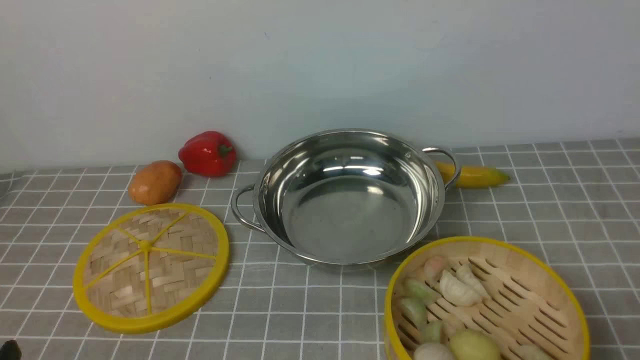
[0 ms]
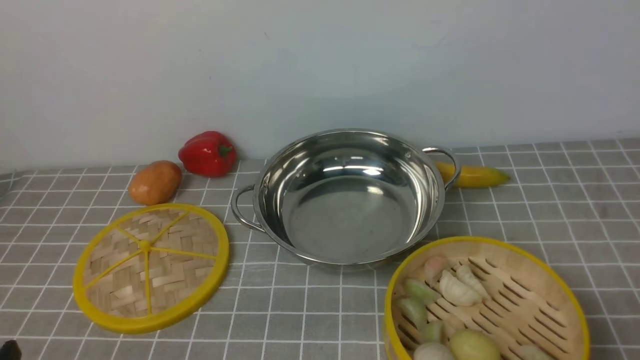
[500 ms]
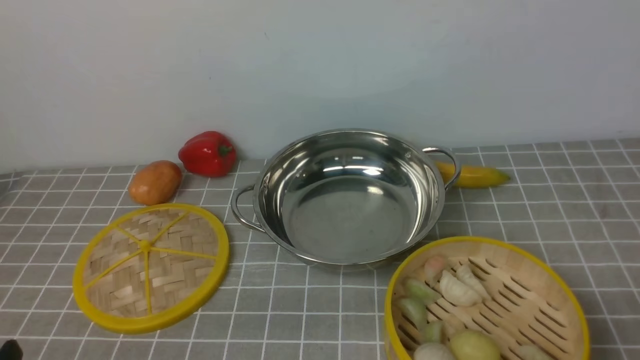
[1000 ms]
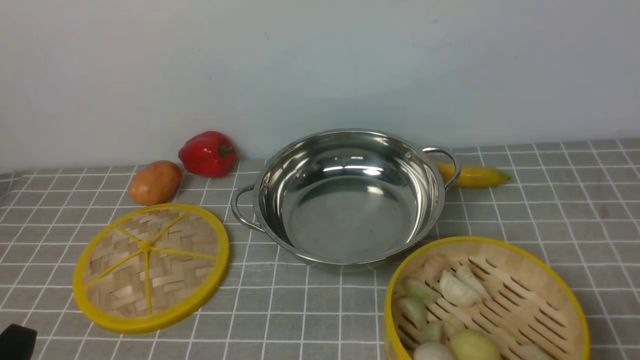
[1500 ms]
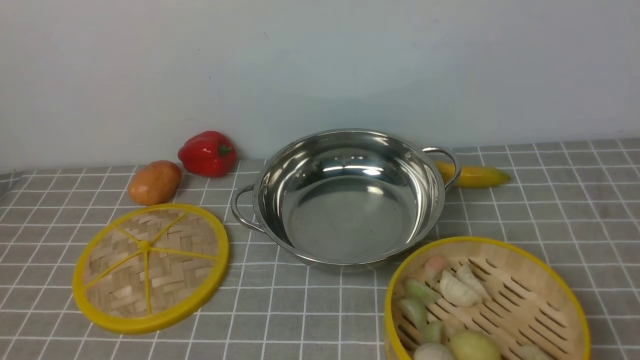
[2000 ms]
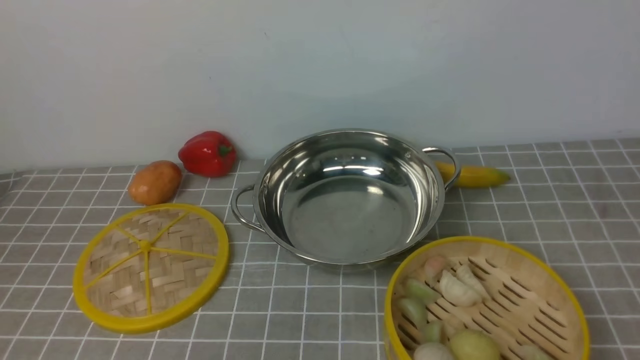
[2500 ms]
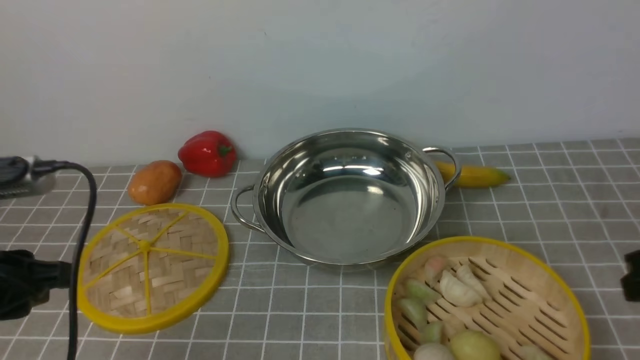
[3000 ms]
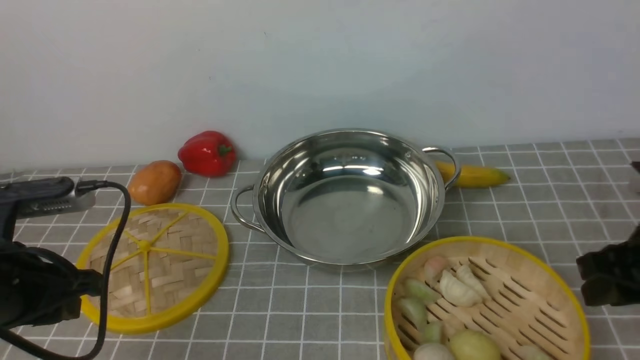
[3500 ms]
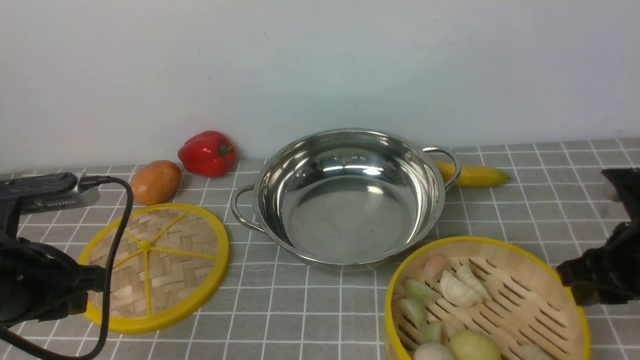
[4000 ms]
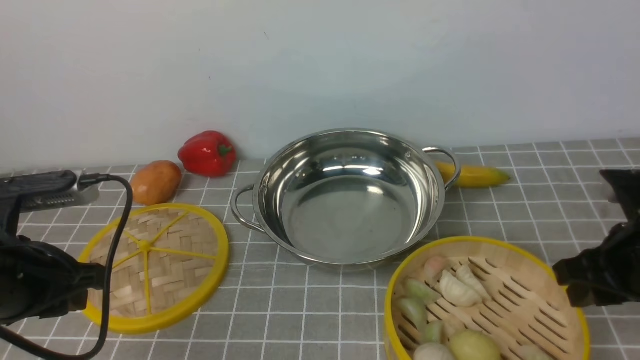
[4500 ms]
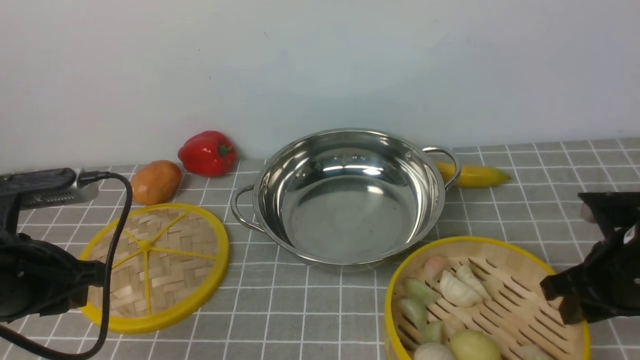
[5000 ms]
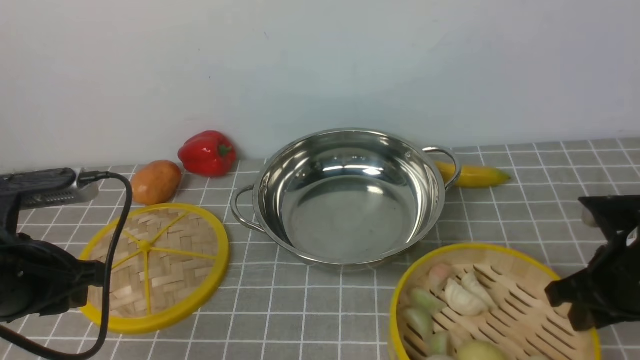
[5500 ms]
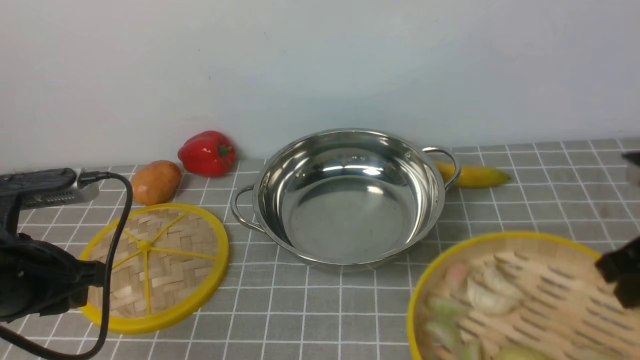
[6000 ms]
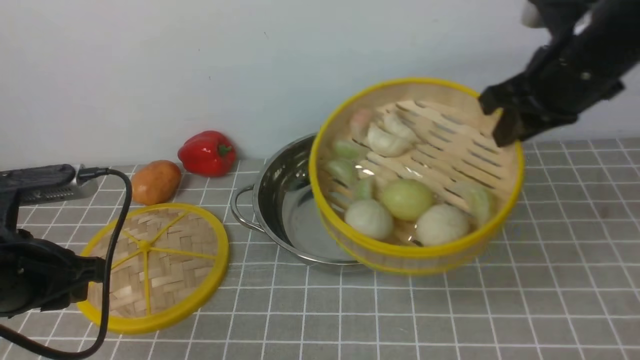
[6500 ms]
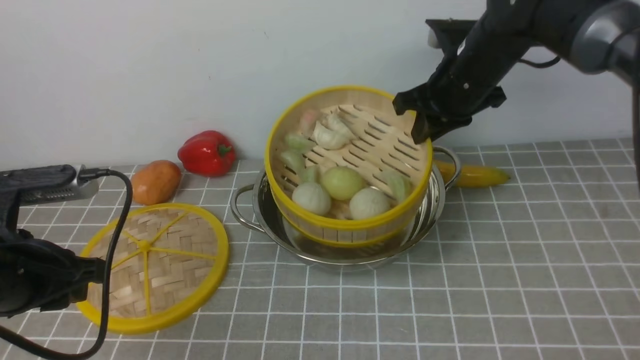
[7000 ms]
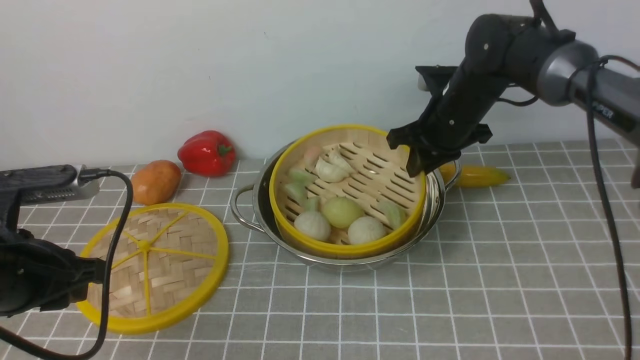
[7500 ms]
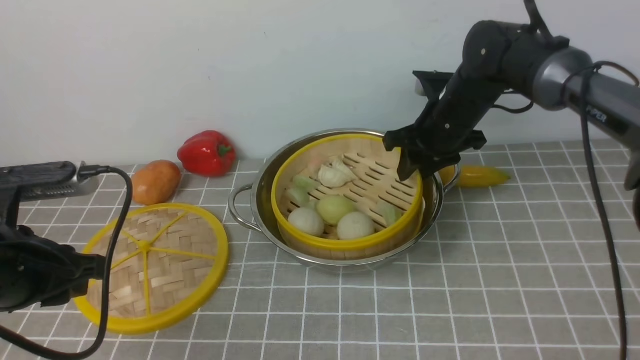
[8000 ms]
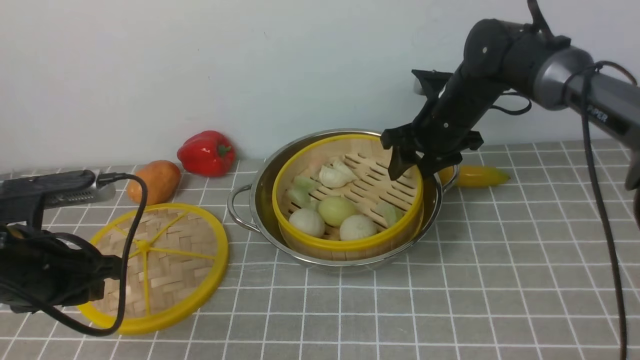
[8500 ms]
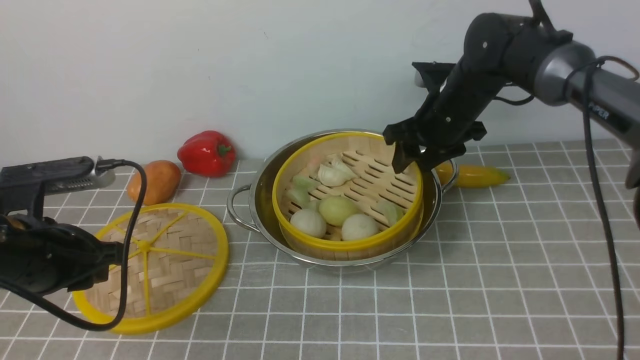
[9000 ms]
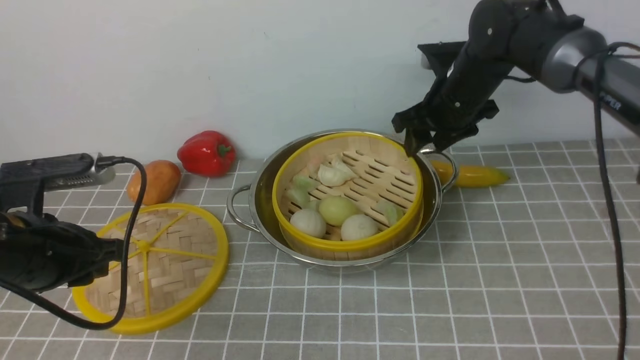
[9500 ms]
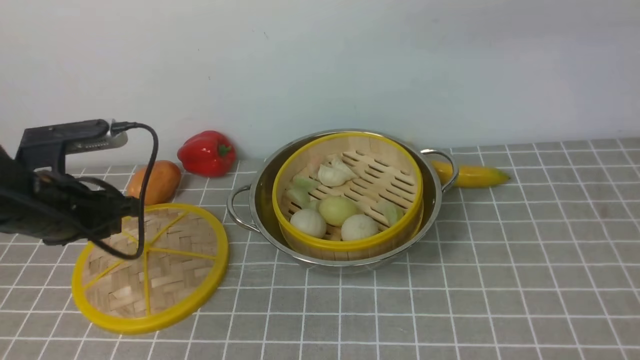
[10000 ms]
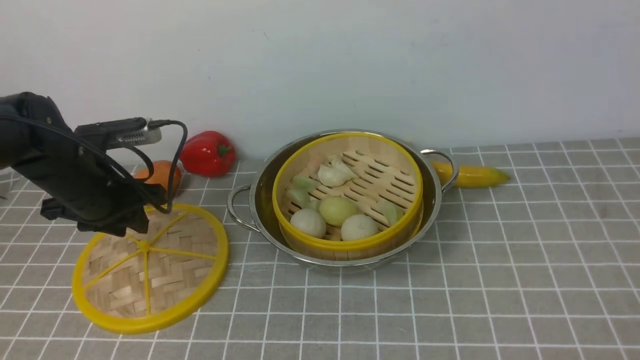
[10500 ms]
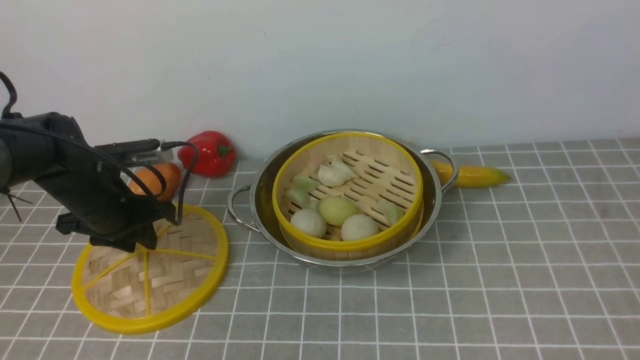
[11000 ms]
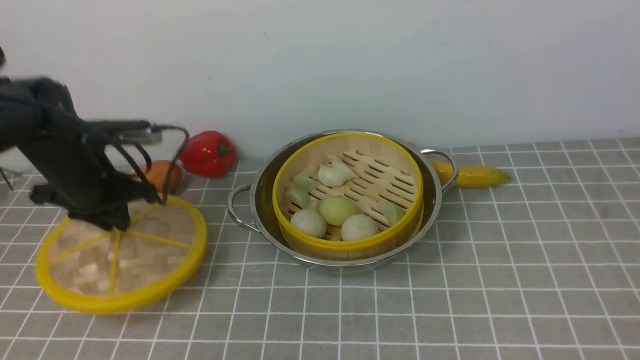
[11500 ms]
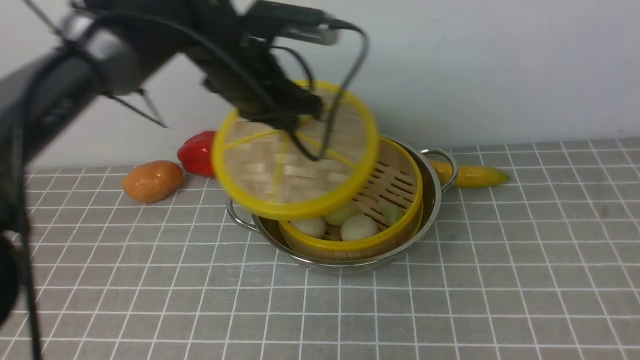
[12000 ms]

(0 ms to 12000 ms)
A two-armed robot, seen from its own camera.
Task of the whole recording: place the steamer in the pot on the grey tablecloth, and put the lid on the steamer.
Step, 0 ms - 5500 ms: use the right arm to lift the steamer closest to it.
Step, 6000 ms - 9500 ms: use the right arm to put the steamer into the iron steamer pot in the middle.
Step, 10000 ms - 11000 ms: use the left arm to lift the lid of the steamer.
2000 ms - 4000 ms: The two grippers go approximately 20 cm forward.
4000 ms - 6000 ms: The right gripper goes approximately 5 cm upward, and closes up.
6000 ms - 8000 ms: The right gripper shifts about 25 cm forward and to the left, and opens up.
8000 ms - 10000 ms: The left gripper travels forward by about 10 cm; the right gripper heads upward and backward, covering some 30 cm, and opens.
10000 ms - 12000 ms: The right gripper is displaced backward by approximately 30 cm, while the left gripper is displaced to the right and forward by about 20 cm.

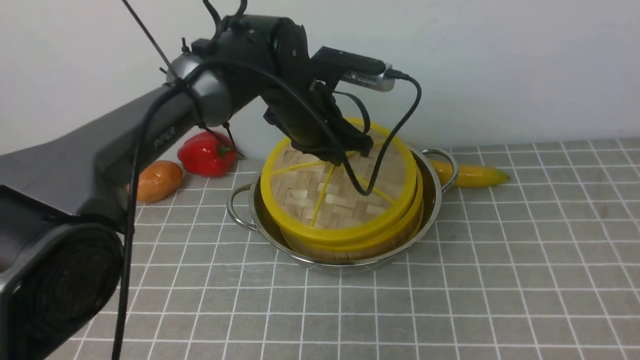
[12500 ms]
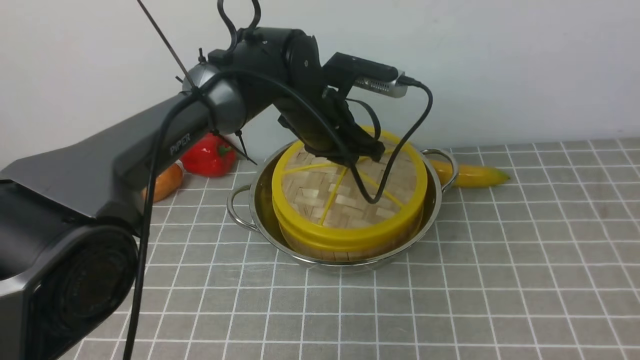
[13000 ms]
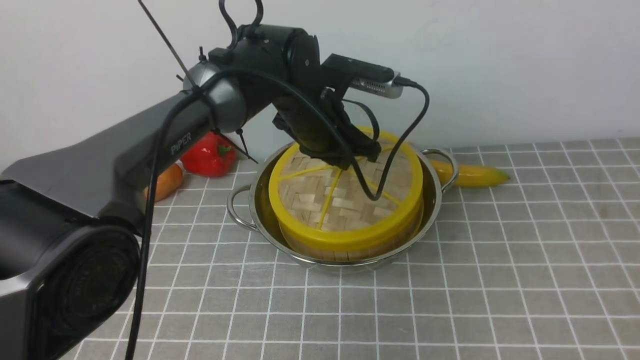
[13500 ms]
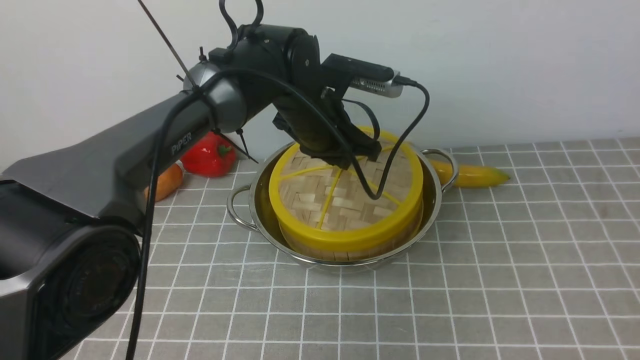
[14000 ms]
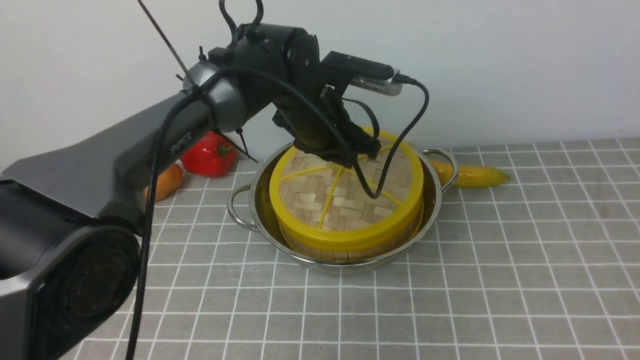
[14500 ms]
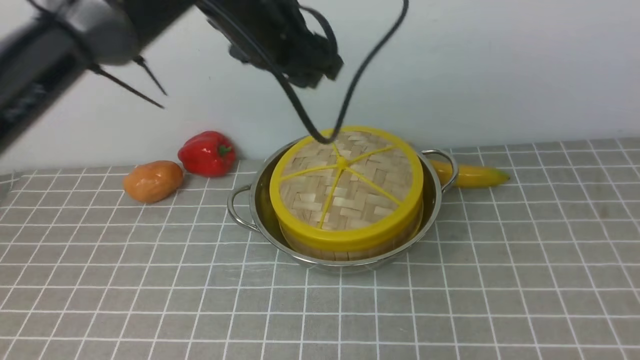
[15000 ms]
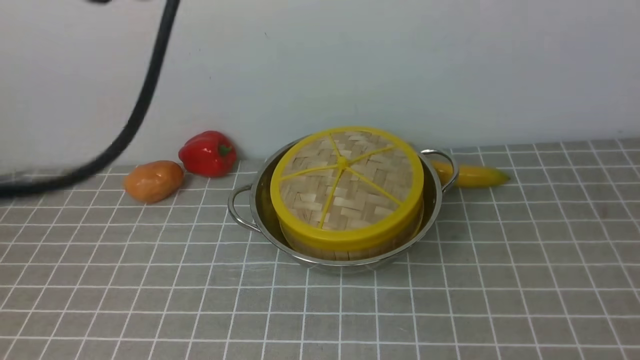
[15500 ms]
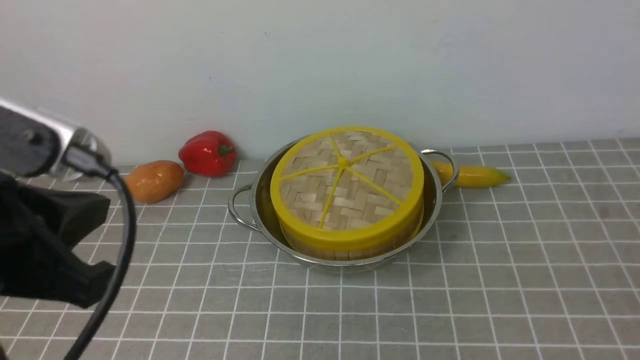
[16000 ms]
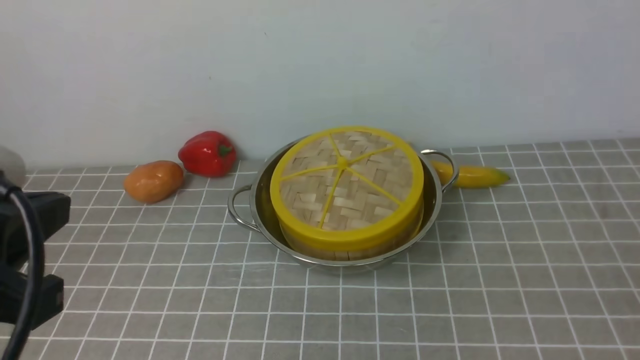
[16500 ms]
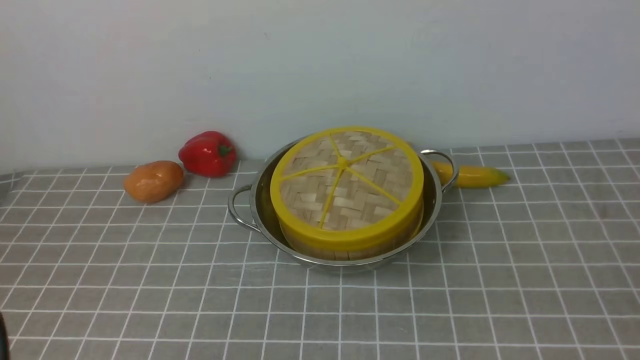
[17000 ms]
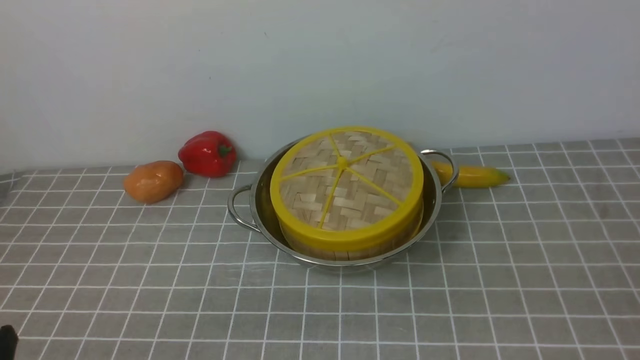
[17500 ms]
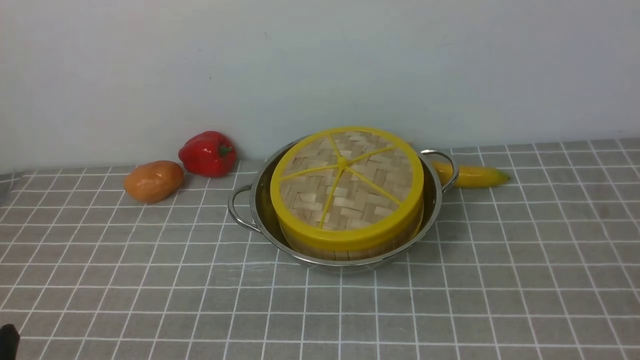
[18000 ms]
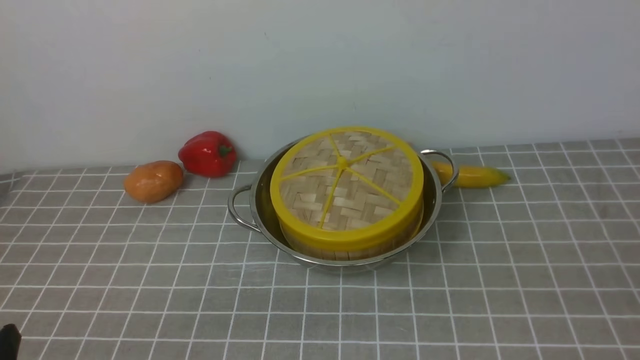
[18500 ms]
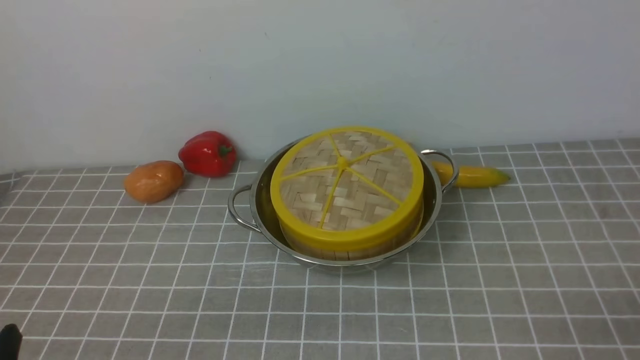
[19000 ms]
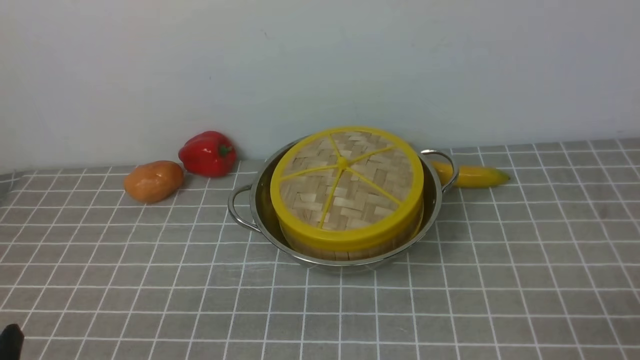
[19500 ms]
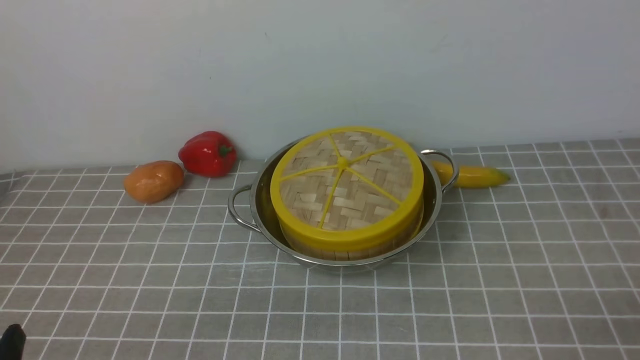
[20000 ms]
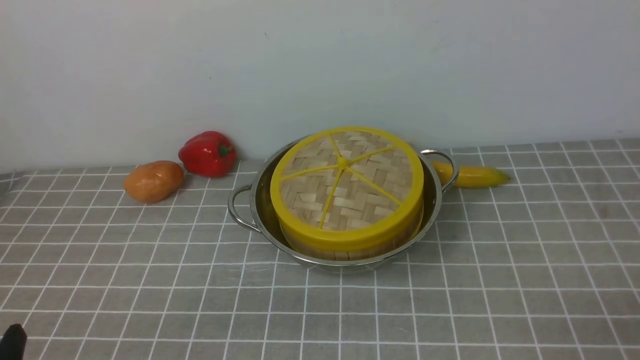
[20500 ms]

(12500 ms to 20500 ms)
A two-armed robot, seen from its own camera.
Task of the whole recording: place the steamer in the pot on the grey tablecloth, and put the lid on the steamer.
Step, 12500 ms - 14500 ms: use the left arm to place the steamer lid on the steamer.
12500 ms - 14500 ms: The left gripper opens up.
14500 ms - 16500 ms: The left gripper travels backward and to the left by some 40 cm, and closes its fingers, while the right gripper travels downward by about 25 cm, and closes its fingers.
16500 ms - 18500 ms: The left gripper moves downward, roughly 20 cm.
